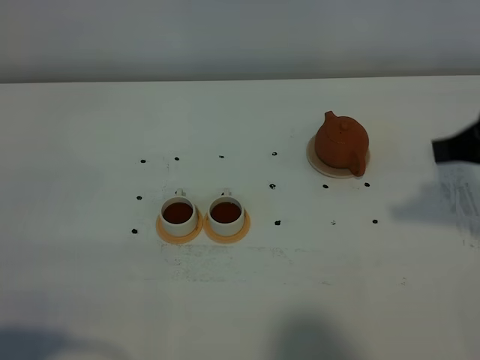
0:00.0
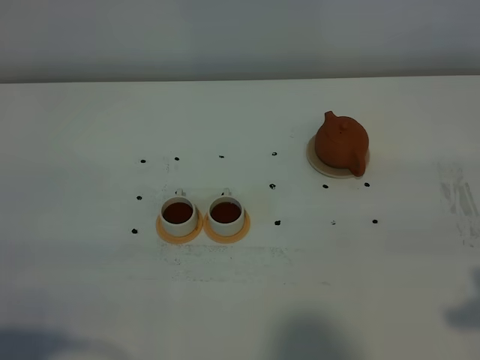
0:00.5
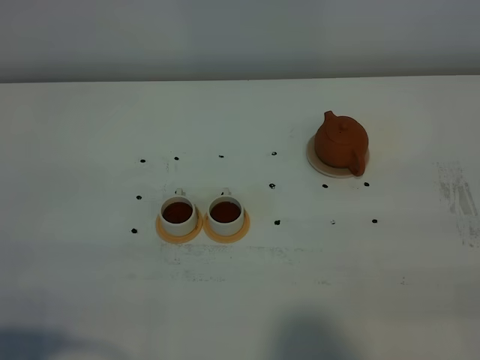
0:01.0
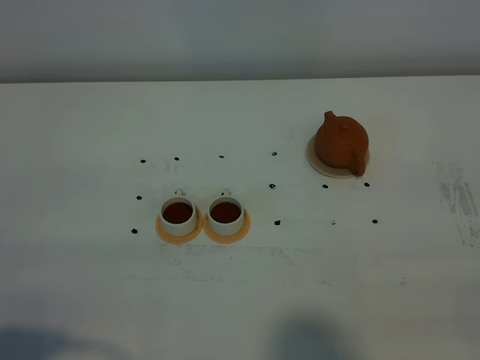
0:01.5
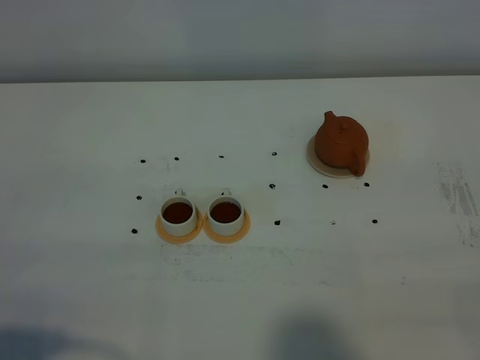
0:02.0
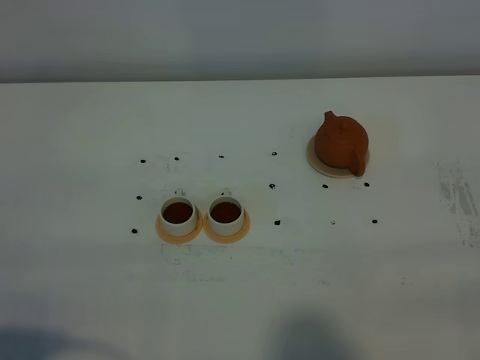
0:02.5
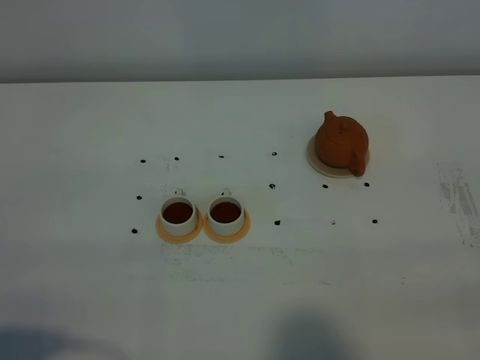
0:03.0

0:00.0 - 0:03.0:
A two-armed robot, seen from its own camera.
Task of the whole recording: grasp the brown teapot and pour the tea into the two white teacups one by one, put the brown teapot back in its original place.
0:00.0 - 0:01.5: The right gripper shifts roughly 20 cm backward.

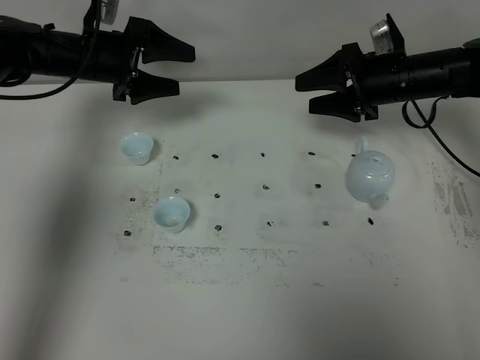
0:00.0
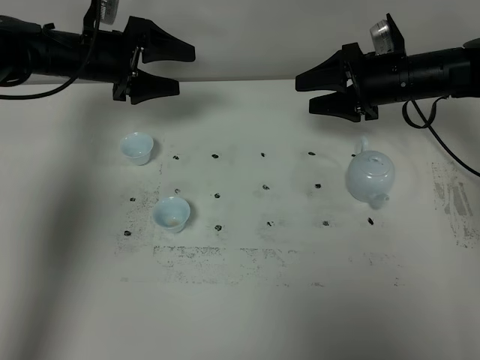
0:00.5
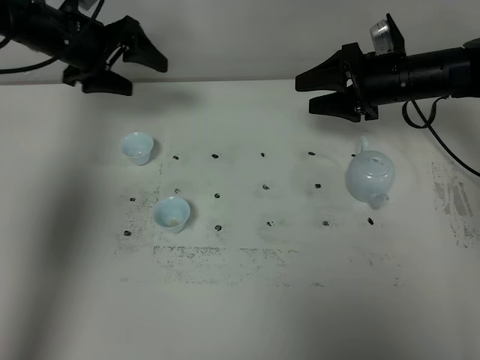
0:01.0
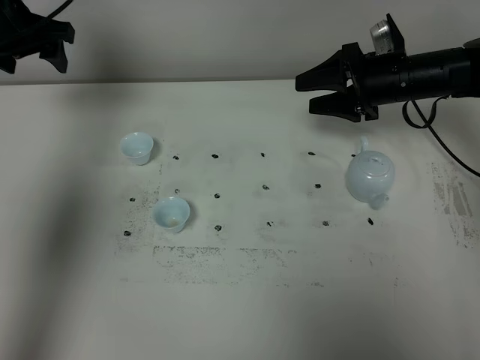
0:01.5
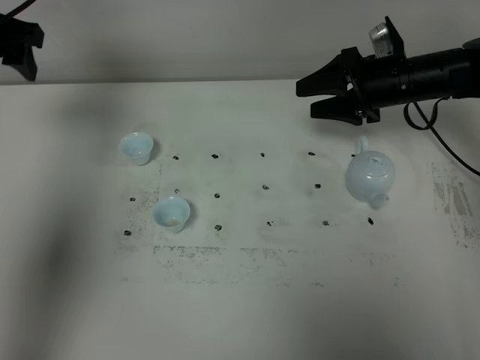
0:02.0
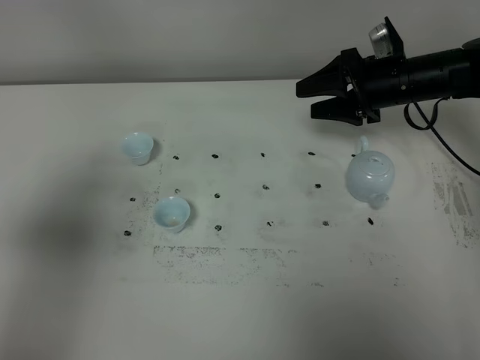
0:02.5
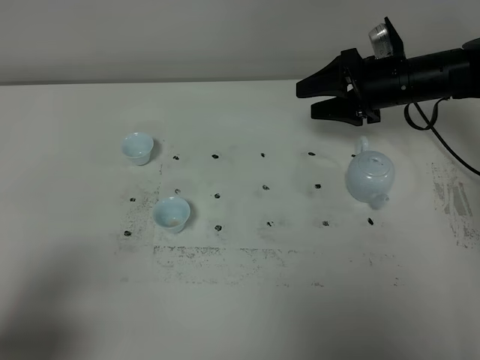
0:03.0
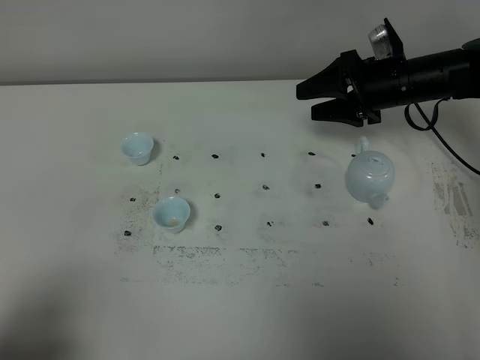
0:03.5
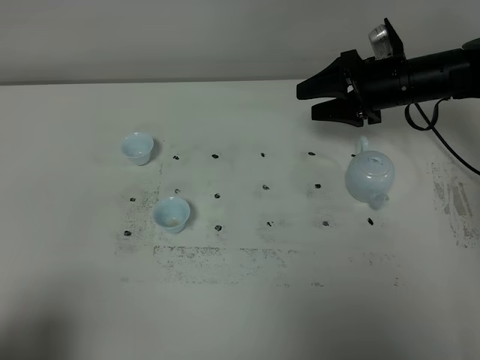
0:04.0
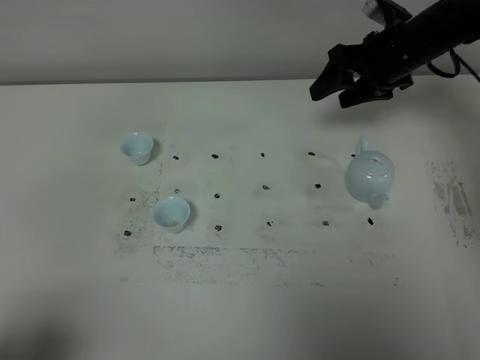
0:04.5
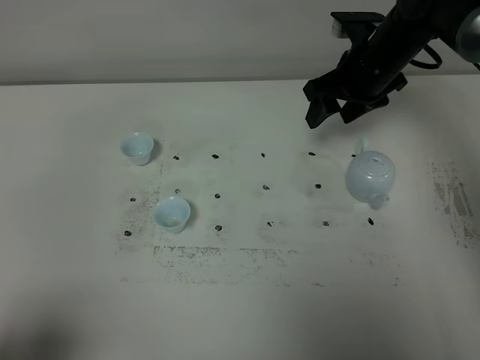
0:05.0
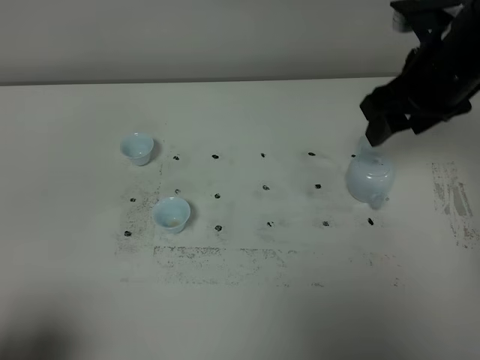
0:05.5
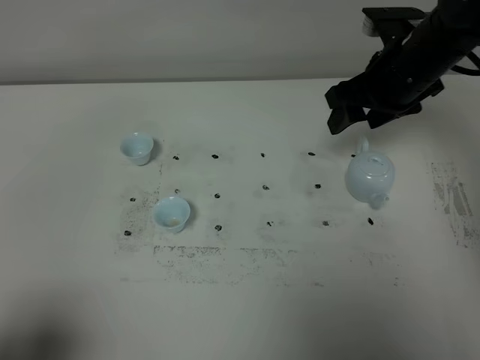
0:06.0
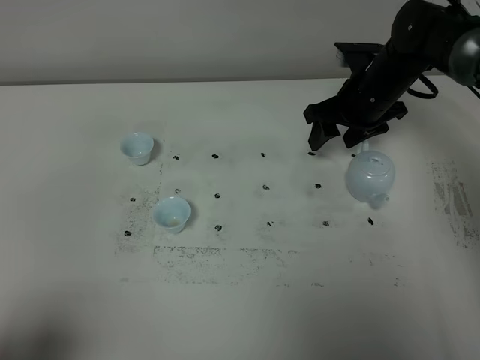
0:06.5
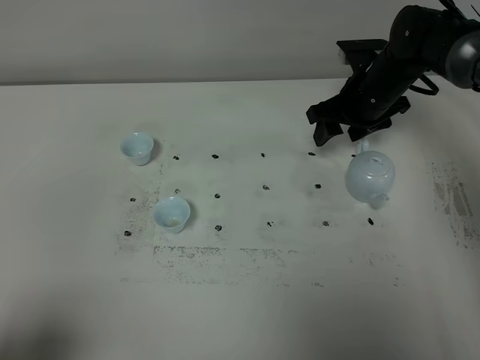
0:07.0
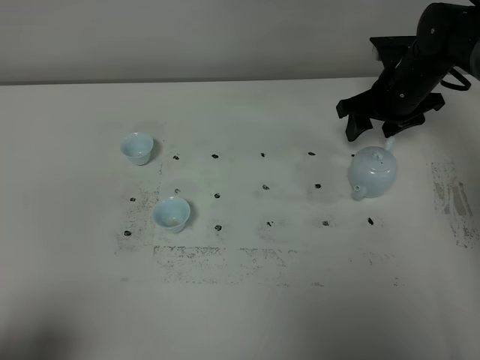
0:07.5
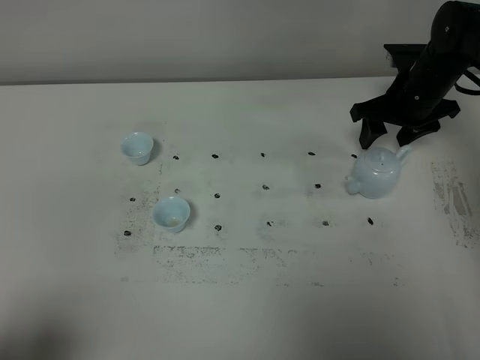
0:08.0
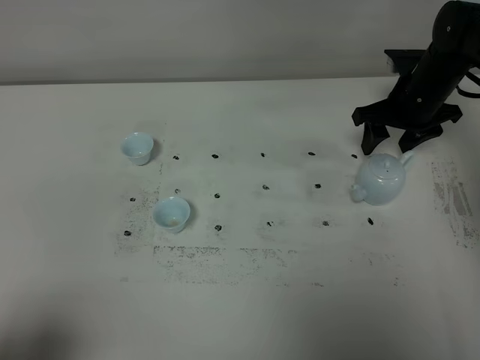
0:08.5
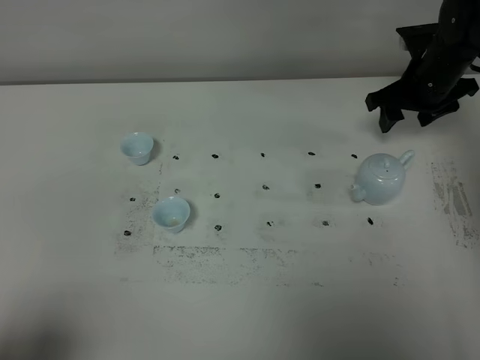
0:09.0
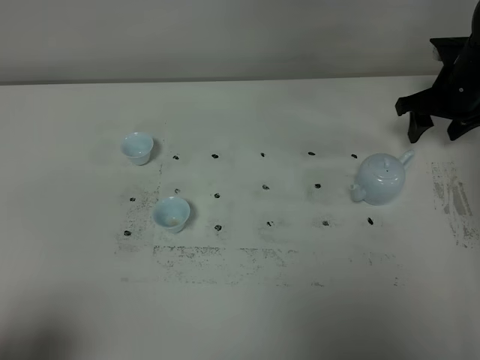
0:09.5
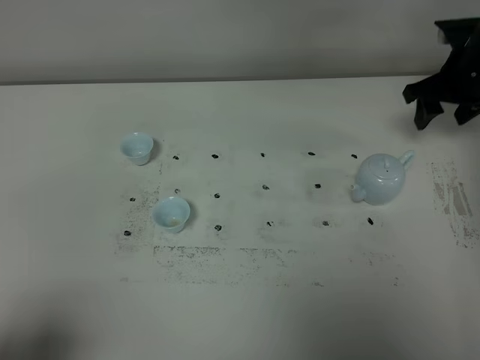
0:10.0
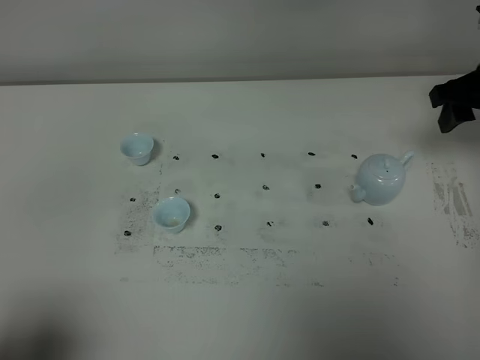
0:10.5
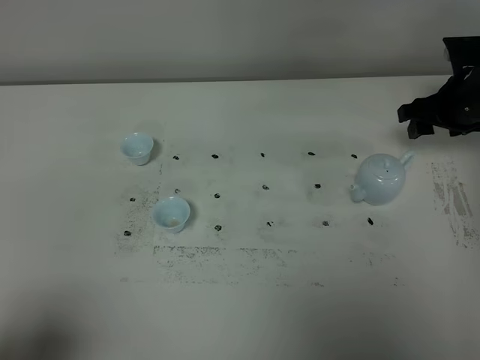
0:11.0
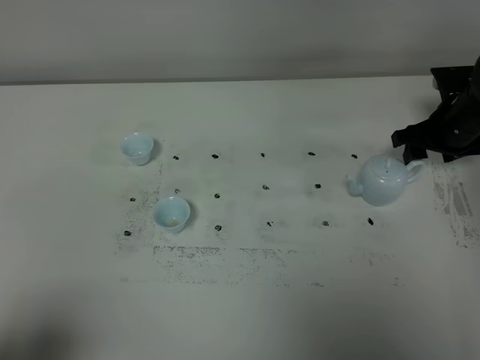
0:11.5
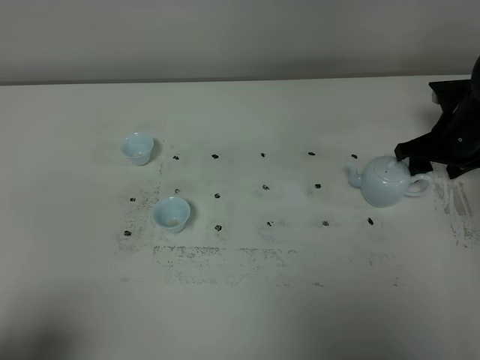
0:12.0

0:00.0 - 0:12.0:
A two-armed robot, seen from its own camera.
Task of the whole recording: grasp the blue porcelain teapot and pour the tea into the two blue porcelain teacups one by one, put the blue porcelain teapot back in its original place.
0:00.0 - 0:02.0: The left gripper moves upward, backward and to the left, approximately 20 cm.
0:02.0 - 0:04.0: The left gripper is displaced backward by roughly 40 cm.
0:04.0 - 0:06.0: The right gripper shifts about 5 cm upward, and moves roughly 10 cm backward and comes back.
0:06.0 - 0:08.0: The right gripper is displaced downward, to the right and forward by about 10 cm.
0:08.0 - 0:10.0: The right gripper moves to the right and upward, roughly 10 cm.
0:10.0 - 0:12.0: The right gripper moves downward, some 10 cm.

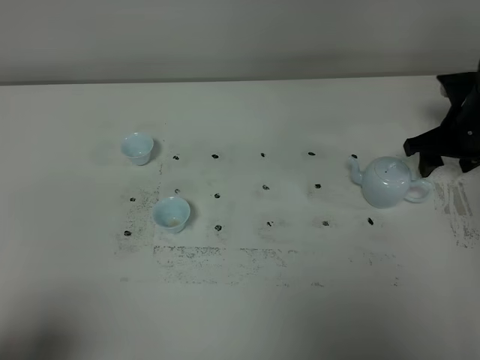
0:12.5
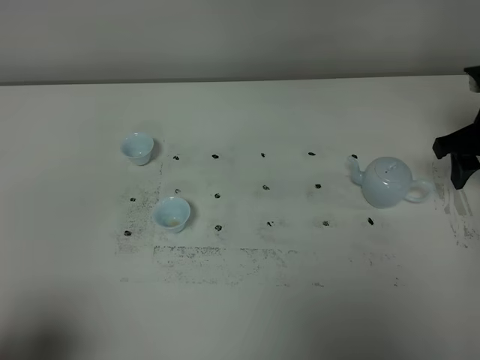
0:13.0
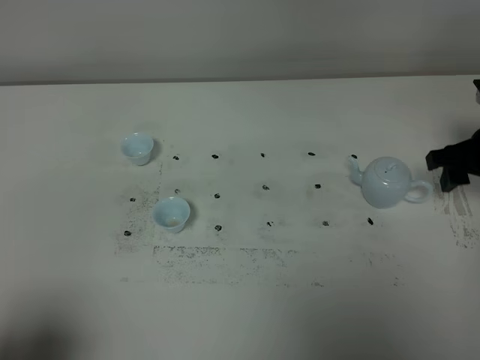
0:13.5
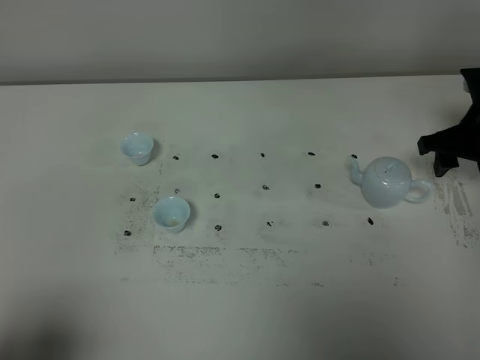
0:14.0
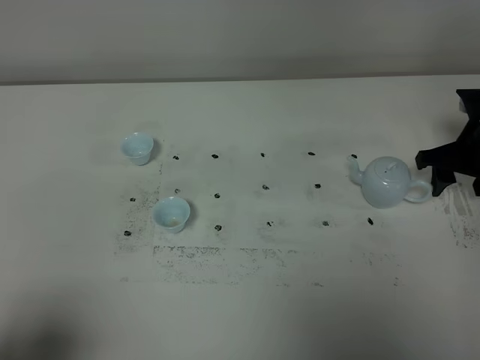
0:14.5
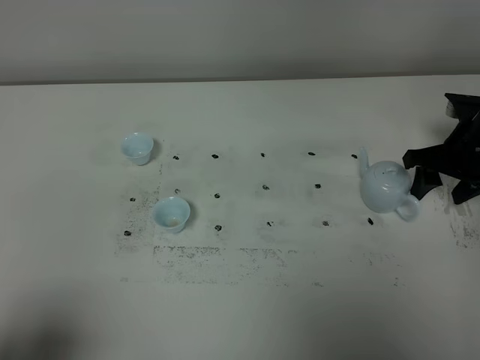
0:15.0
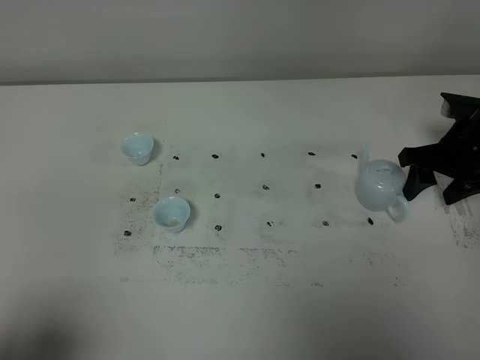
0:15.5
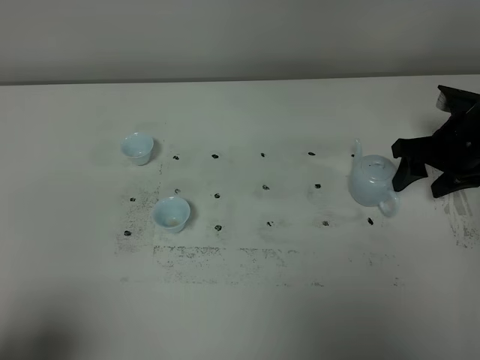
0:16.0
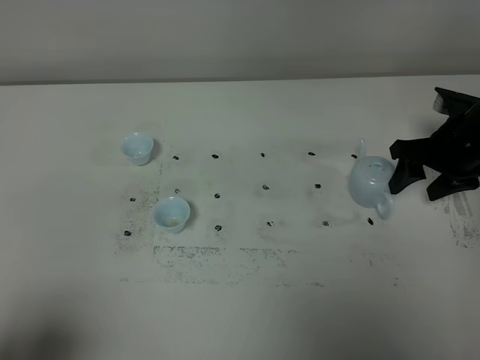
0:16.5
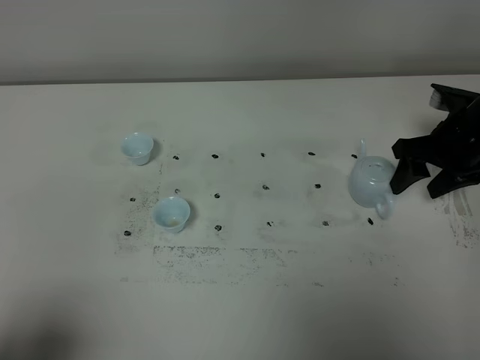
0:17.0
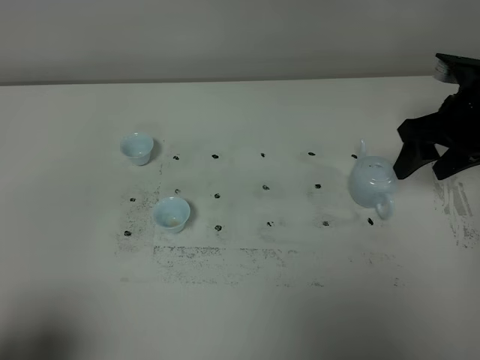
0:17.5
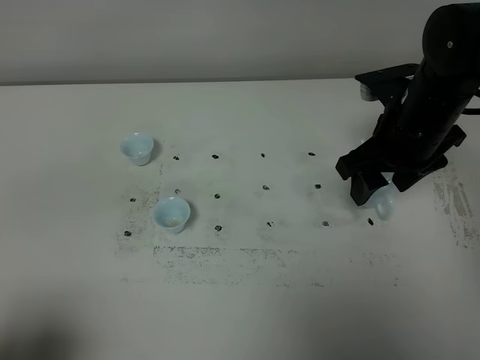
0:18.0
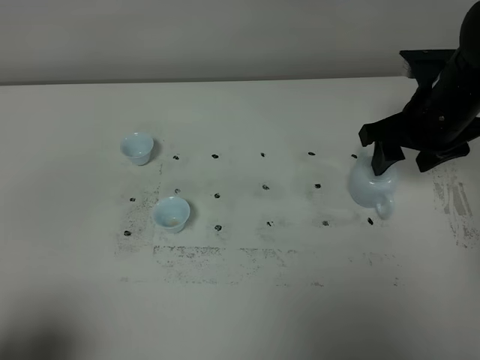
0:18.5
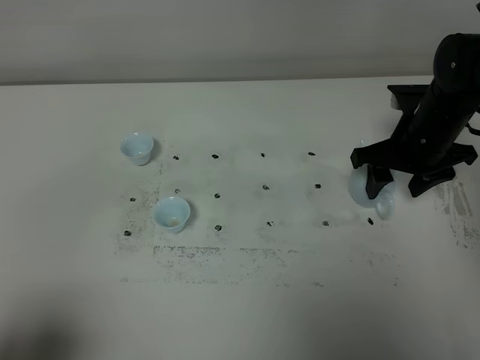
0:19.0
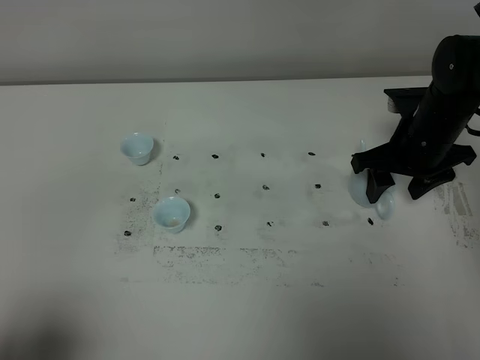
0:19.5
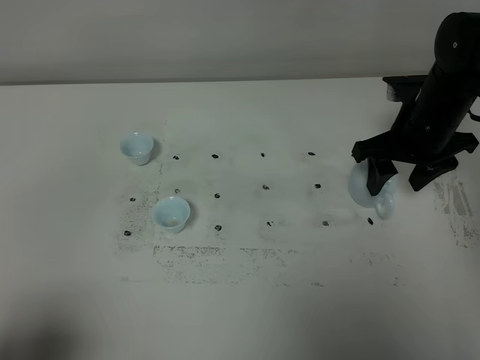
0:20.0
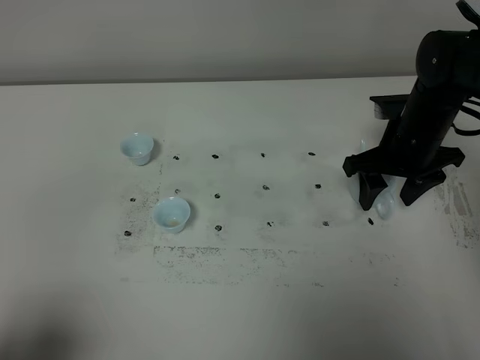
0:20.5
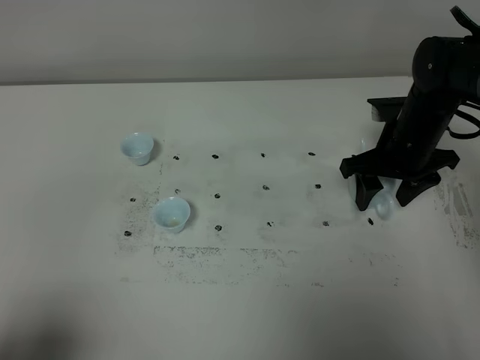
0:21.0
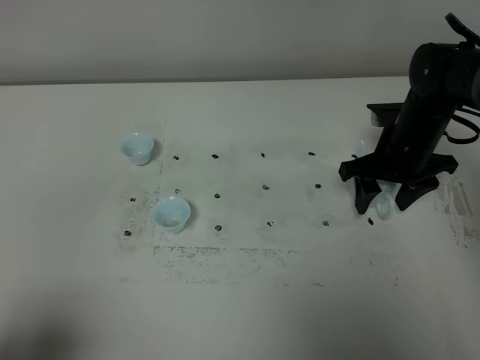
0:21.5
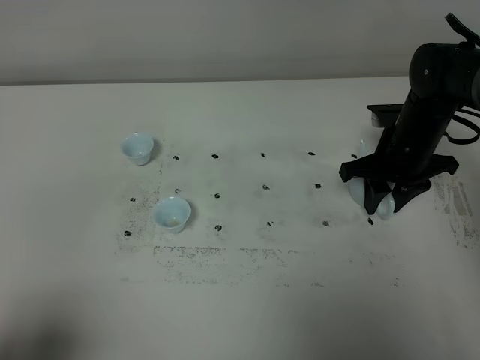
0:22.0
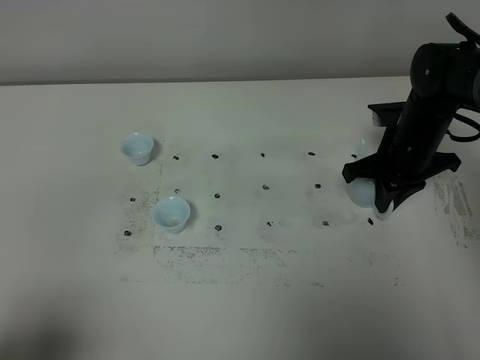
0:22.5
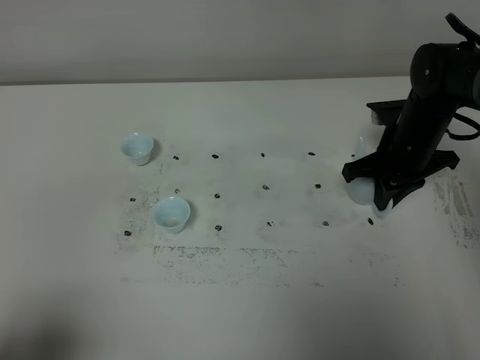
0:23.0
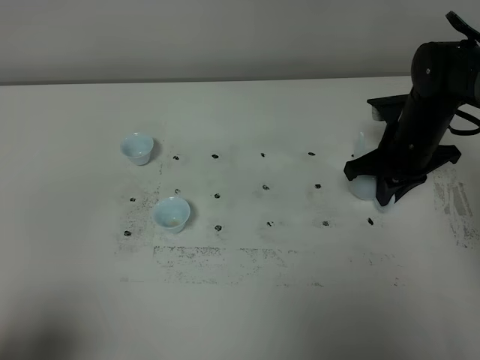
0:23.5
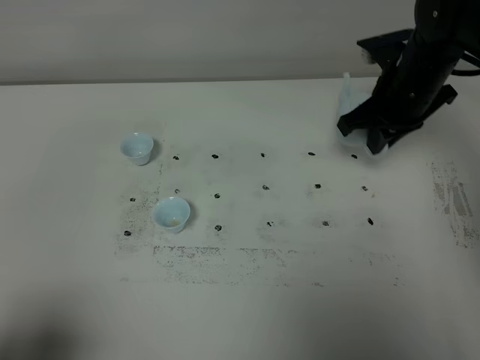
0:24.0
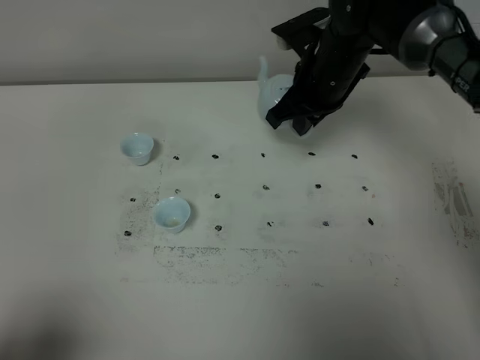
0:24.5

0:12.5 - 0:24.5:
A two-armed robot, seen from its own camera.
Task of the whole recording: grasp the blue porcelain teapot and pour the tea into the two blue porcelain teacups one by one, put the blue porcelain teapot back in its original place.
Step, 0:12.5 - 0:23.5: Pick up the teapot with the right gripper.
0:14.5 - 0:16.5: The grippers make only small movements.
0:16.5 - 0:18.5: The right gripper heads upward and to the left, covering about 10 cm.
0:18.5 - 0:20.5: The right gripper travels downward by approximately 5 cm.
0:20.5 - 0:22.5: The right gripper closes its fingers.
0:22.5 - 0:24.5: The right gripper shifts roughly 15 cm to the left and upward.
